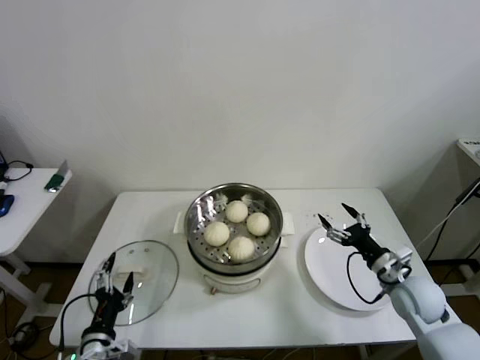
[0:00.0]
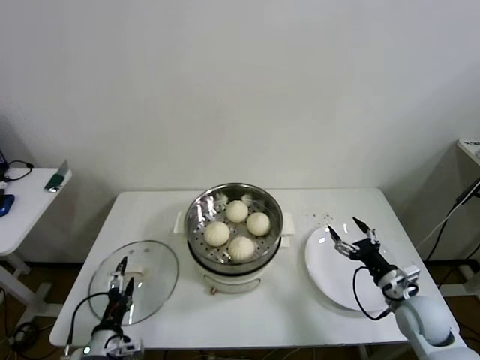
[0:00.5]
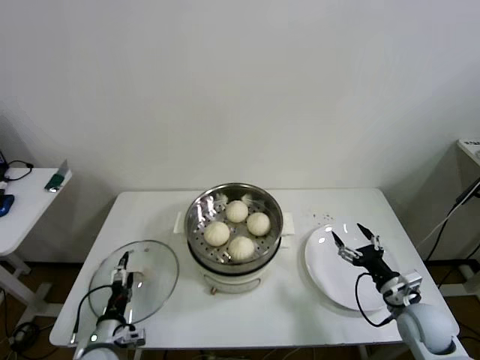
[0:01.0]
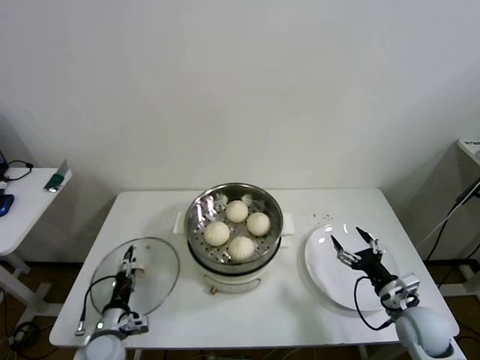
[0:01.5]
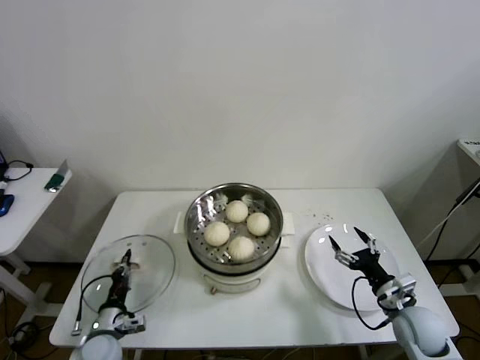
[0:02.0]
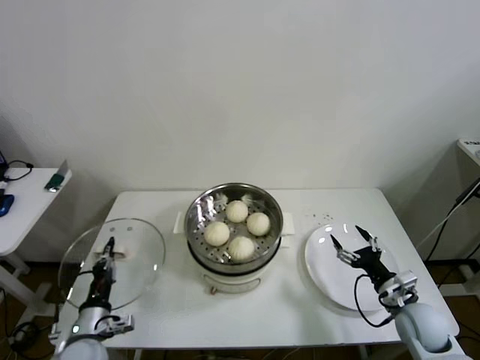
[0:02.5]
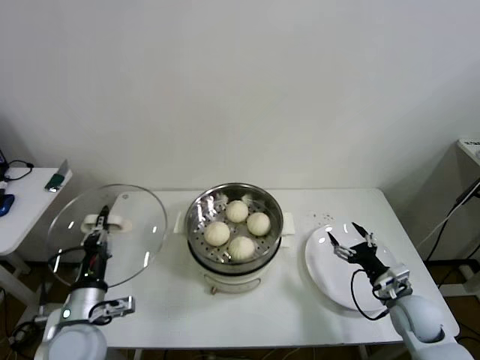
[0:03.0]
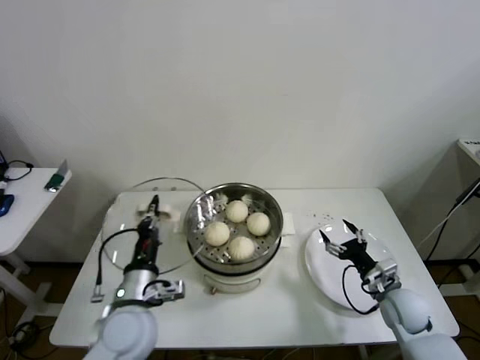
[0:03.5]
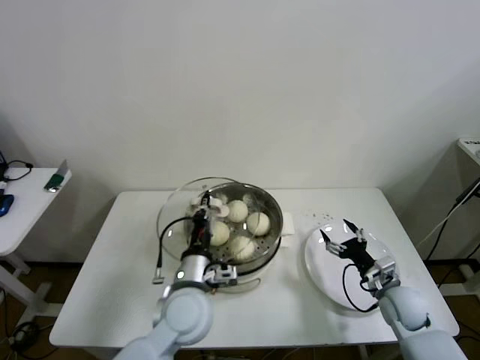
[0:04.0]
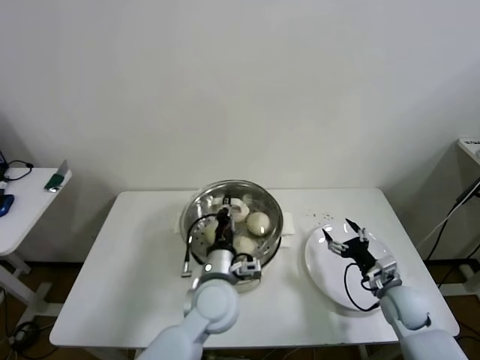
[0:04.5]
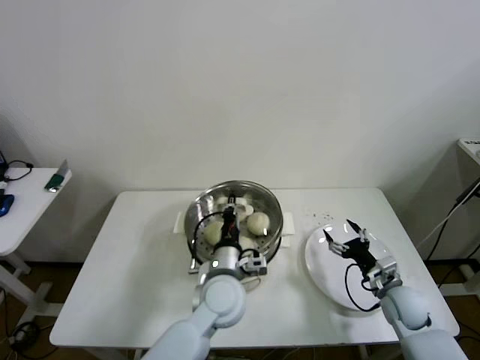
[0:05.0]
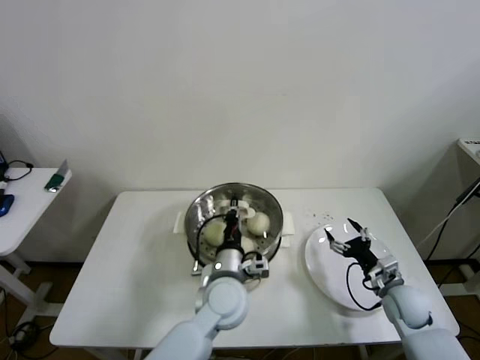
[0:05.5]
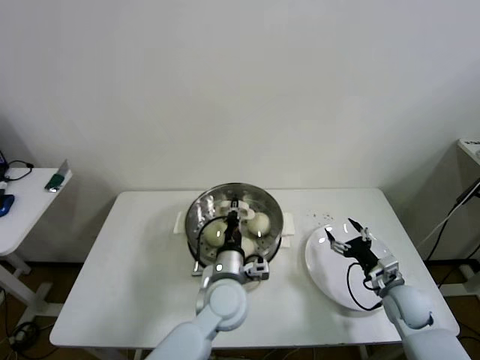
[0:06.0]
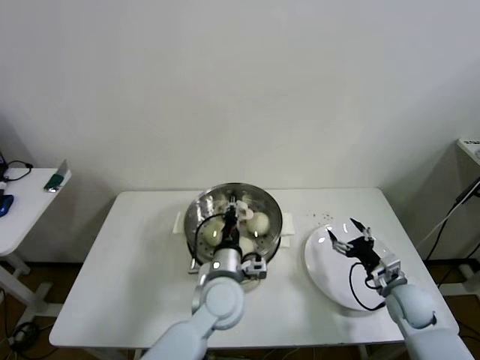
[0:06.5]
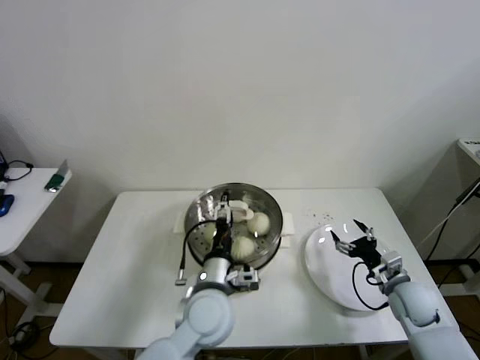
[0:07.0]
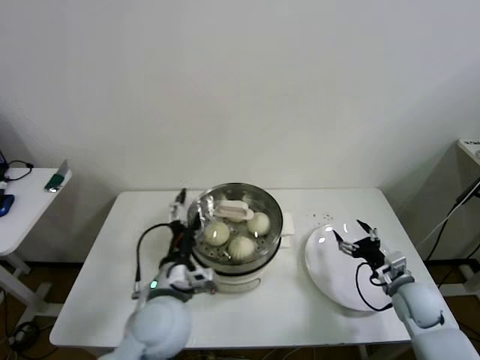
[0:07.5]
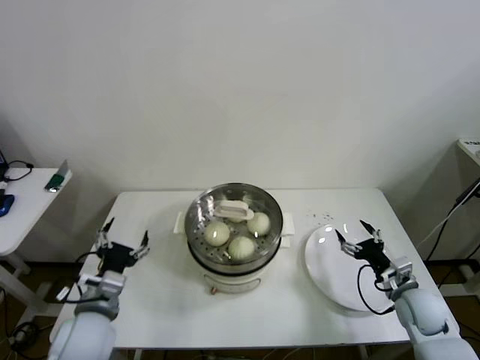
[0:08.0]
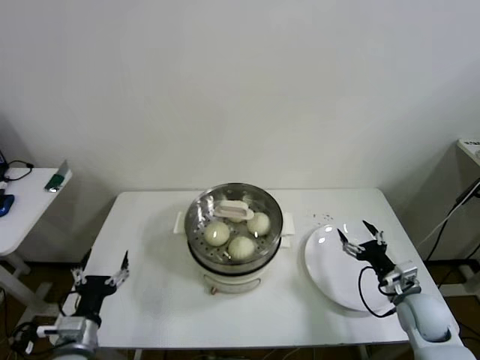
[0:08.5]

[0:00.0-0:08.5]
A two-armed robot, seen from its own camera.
Step, 0:00.0 to 0:02.0: Grasp the pot lid with left gripper.
Step, 0:02.5 to 0:07.0: Place the pot lid on the steamer with left gripper.
0:00.0 to 0:02.0: The left gripper is displaced downward and forward by some 10 cm, and closes its fingers. The right gripper travels backward by approximately 5 cm.
0:02.0 to 0:04.0: The left gripper moves to the right and upward, approximately 30 cm; the right gripper travels forward by approximately 5 cm.
0:04.0 to 0:06.5: The left gripper goes some 5 cm to the right.
0:06.5 to 0:08.5: The left gripper shifts roughly 30 cm to the left and backward, and opens its fingers.

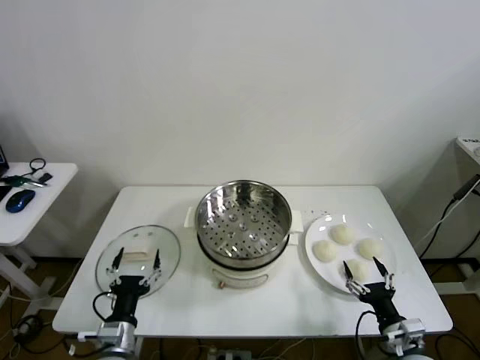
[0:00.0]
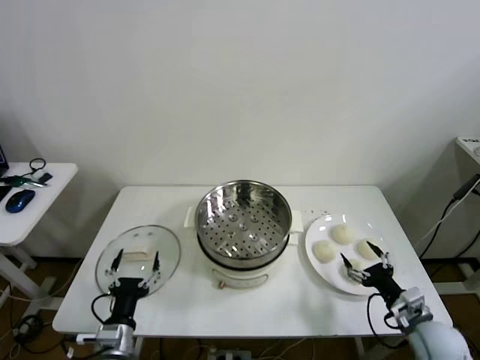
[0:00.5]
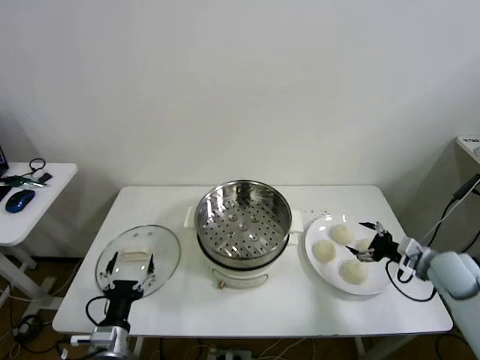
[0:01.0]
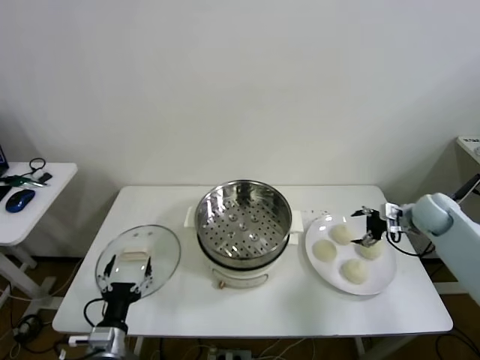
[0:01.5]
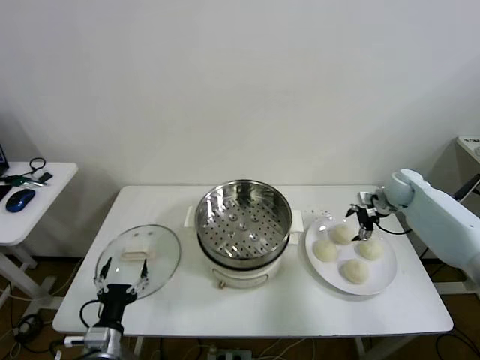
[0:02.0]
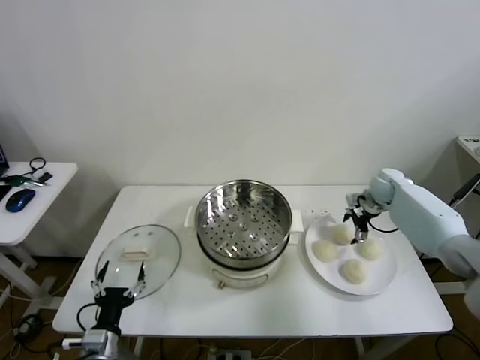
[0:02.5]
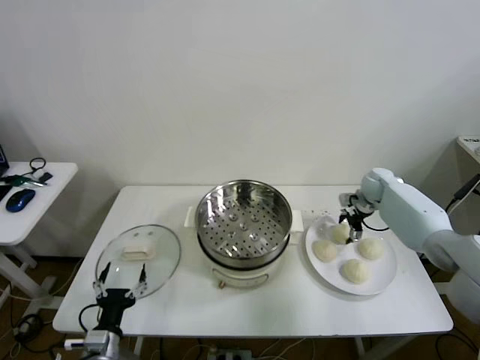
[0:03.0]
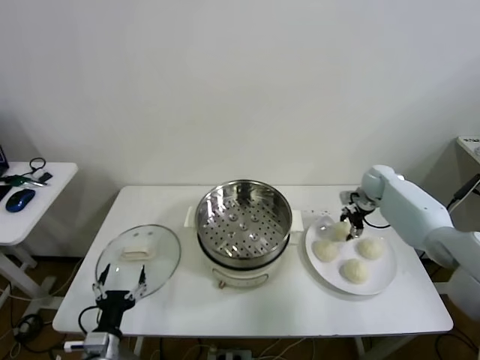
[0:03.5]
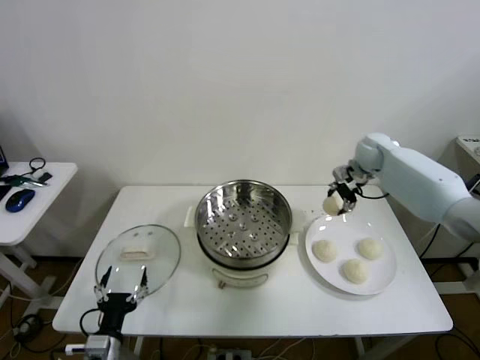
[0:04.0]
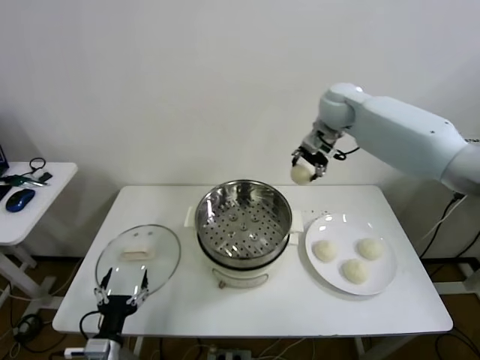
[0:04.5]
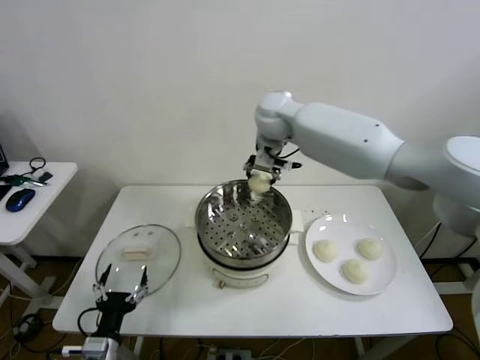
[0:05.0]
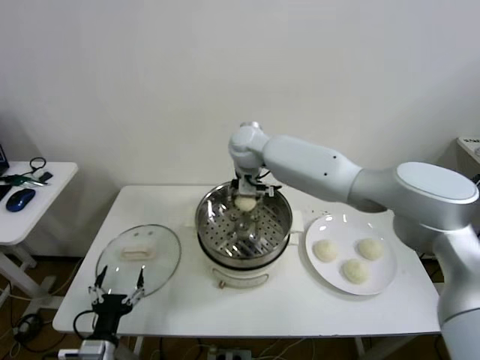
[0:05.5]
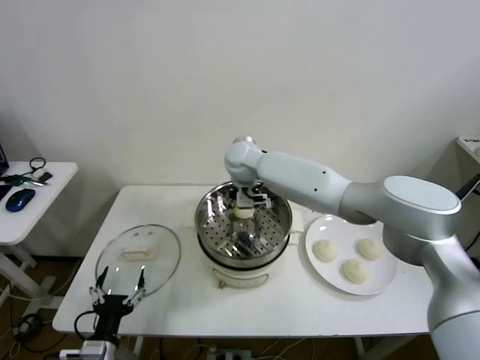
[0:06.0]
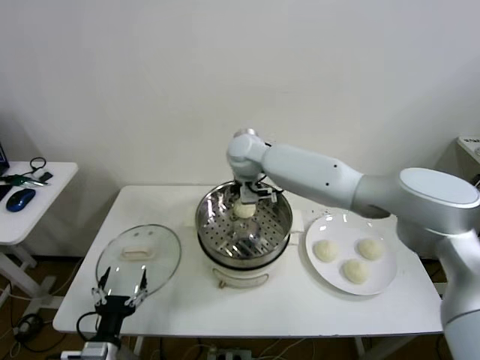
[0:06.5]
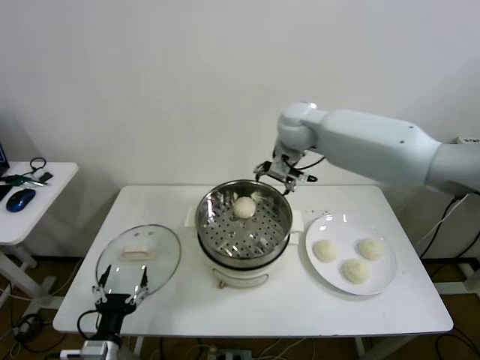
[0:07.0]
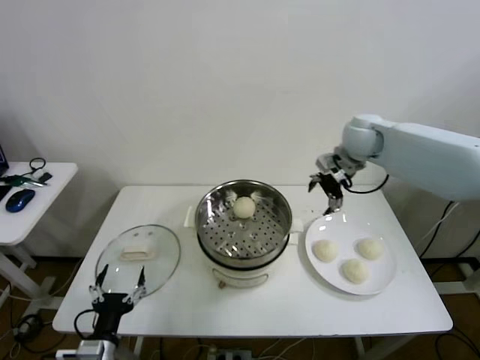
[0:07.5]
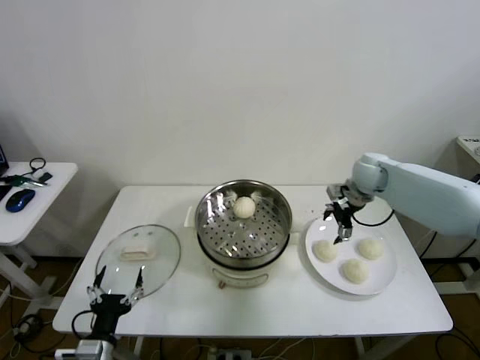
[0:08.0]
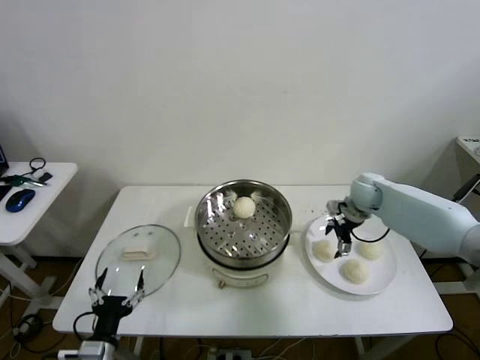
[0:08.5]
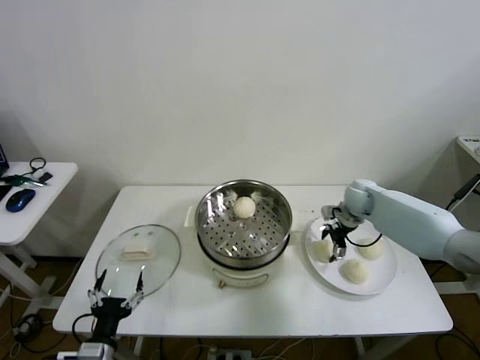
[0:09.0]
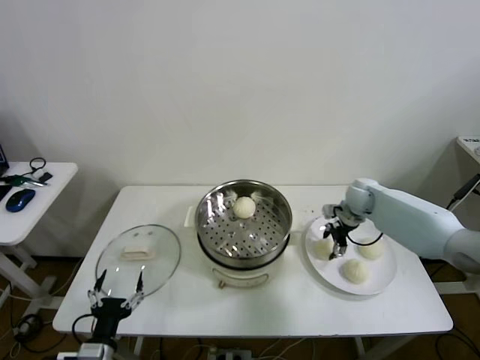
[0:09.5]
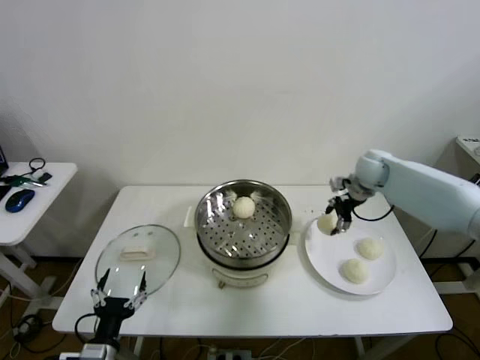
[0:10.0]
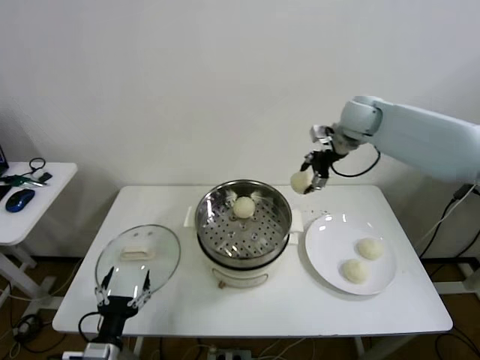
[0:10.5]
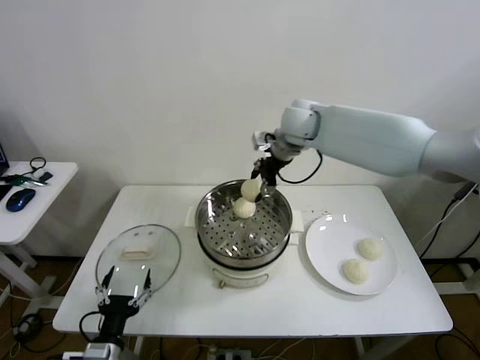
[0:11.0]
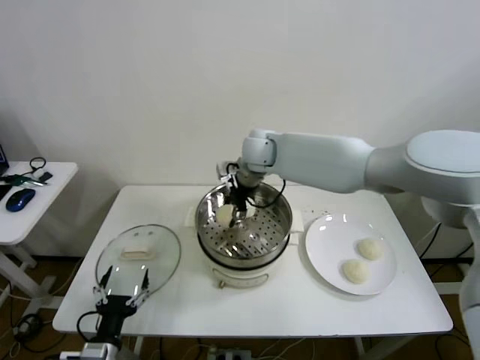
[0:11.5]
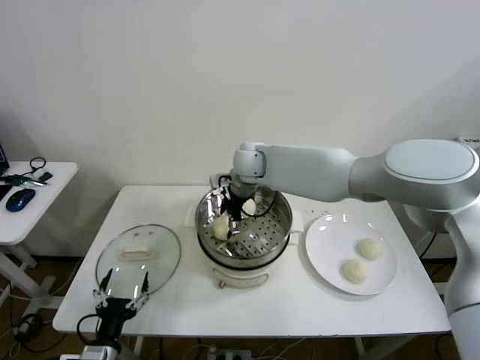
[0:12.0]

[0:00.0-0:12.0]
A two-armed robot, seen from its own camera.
Step, 0:00.0 to 0:03.0: Grasp the baozi in the plate with right gripper.
Step, 0:03.5 to 0:06.0: Place the baozi on the steamer with right gripper.
Step, 0:06.5 to 0:09.0: Grasp the baozi in the plate with right gripper.
0:02.0 to 0:04.0: The right gripper moves upward and to the left, roughly 15 cm, and closes up.
0:04.0 to 0:06.0: The right gripper moves to the left, roughly 30 cm, and opens its fingers.
0:06.0 to 0:08.0: The right gripper is displaced to the right by roughly 30 cm.
0:08.0 to 0:10.0: The right gripper moves some 10 cm downward and comes back, and closes its fingers.
0:10.0 to 0:12.0: The right gripper is displaced to the left by roughly 30 cm, and opens up.

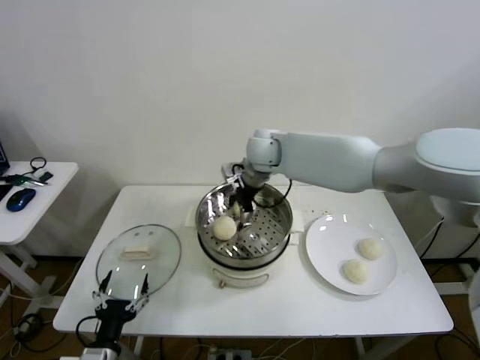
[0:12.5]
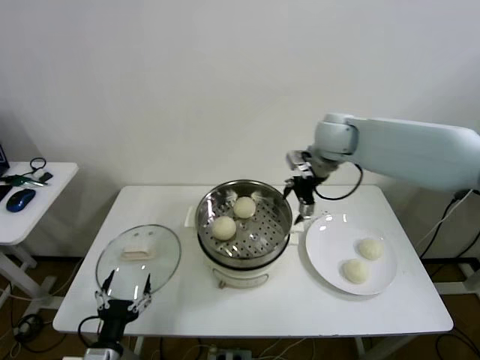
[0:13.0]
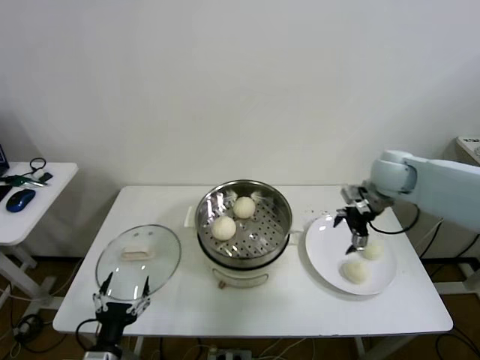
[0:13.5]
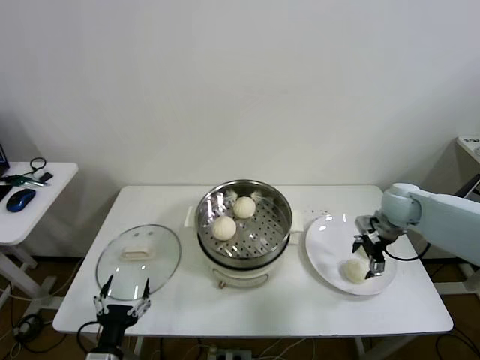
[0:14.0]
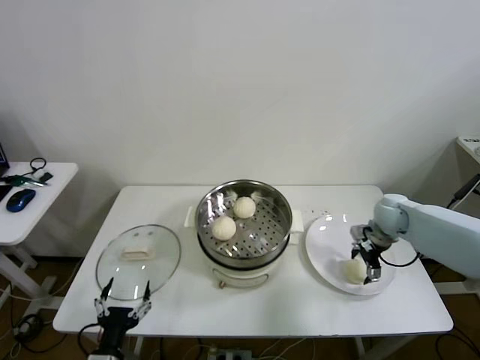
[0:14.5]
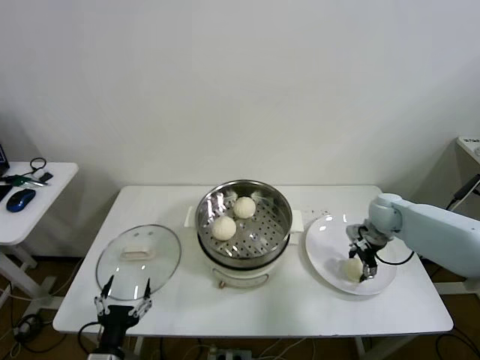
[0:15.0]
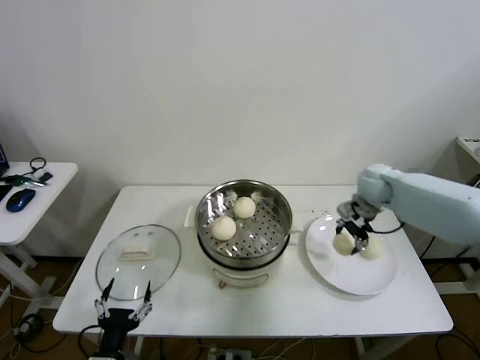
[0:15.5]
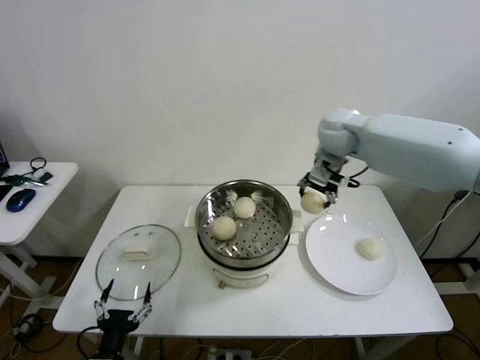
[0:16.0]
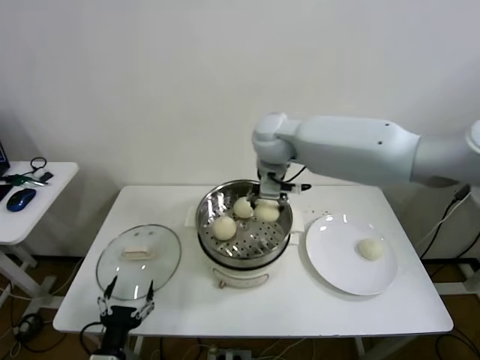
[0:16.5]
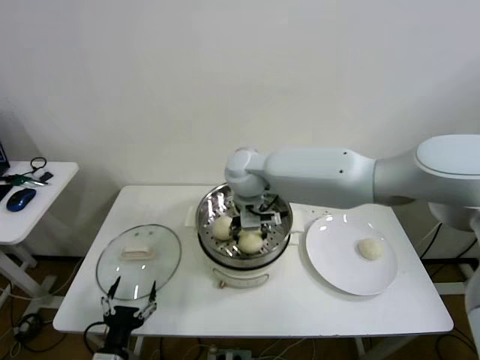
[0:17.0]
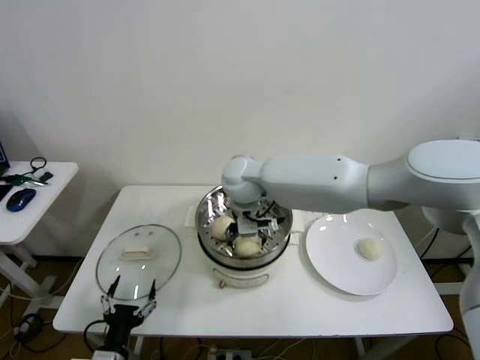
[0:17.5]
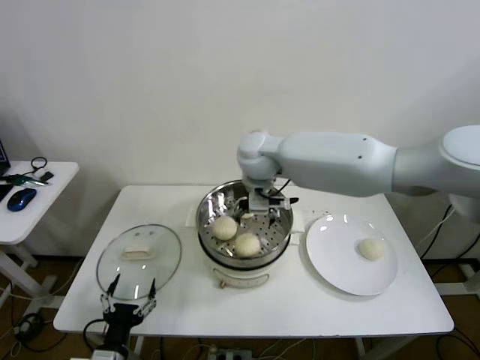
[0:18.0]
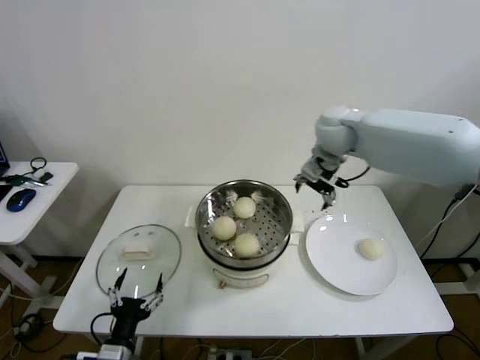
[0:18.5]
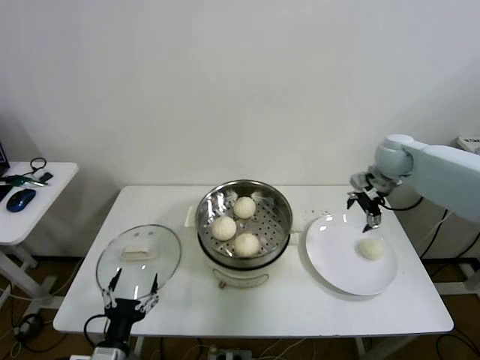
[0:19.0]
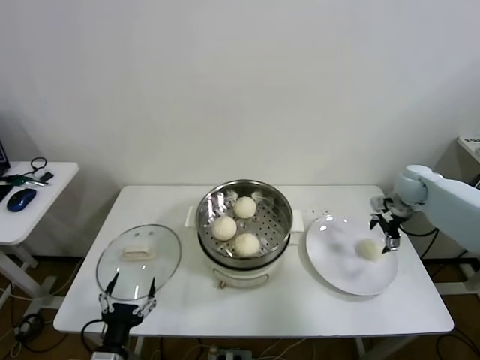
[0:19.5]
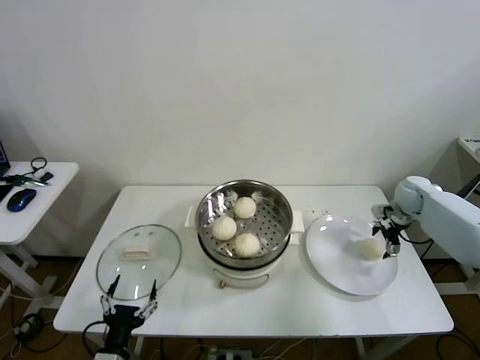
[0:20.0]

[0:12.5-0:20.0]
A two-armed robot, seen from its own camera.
Step, 0:12.5 to 0:14.5: Grasp the baozi in the plate with right gripper.
Step, 0:15.0 to 0:17.5: Place the baozi on the steamer with right gripper.
0:12.5 to 0:14.5: The right gripper moves to the right and downward, roughly 35 cm.
0:14.5 to 0:16.5: The right gripper shifts approximately 40 cm to the left and upward, and closes.
0:16.5 to 0:18.0: The right gripper opens up.
0:18.0 to 0:20.0: The right gripper is displaced to the right and downward by about 50 cm.
